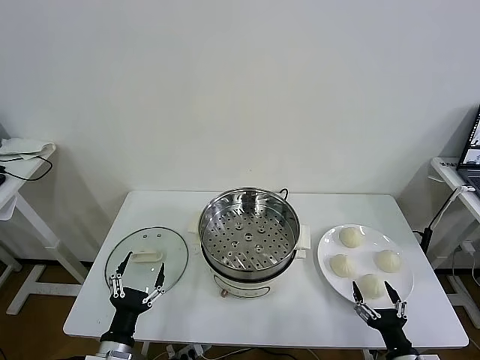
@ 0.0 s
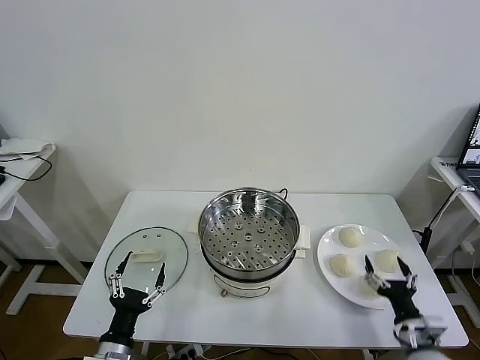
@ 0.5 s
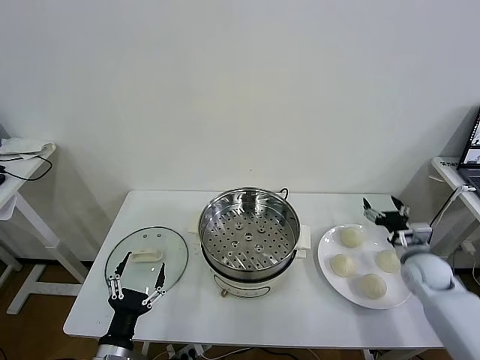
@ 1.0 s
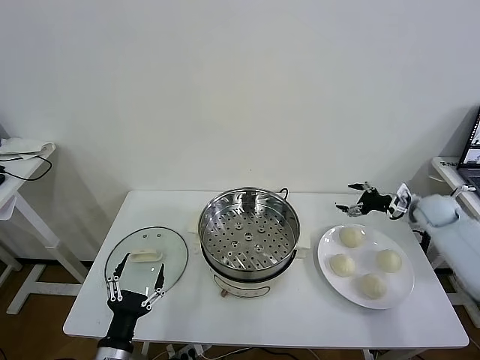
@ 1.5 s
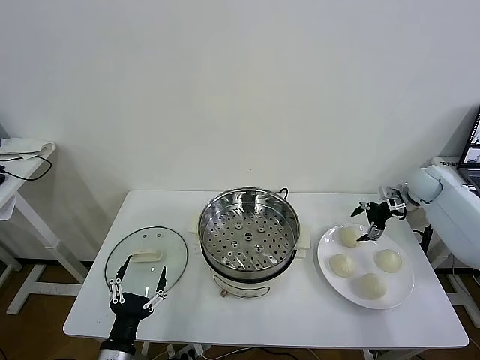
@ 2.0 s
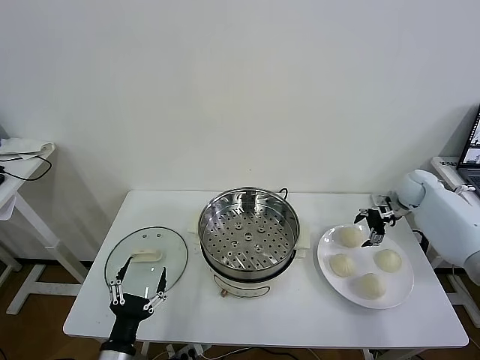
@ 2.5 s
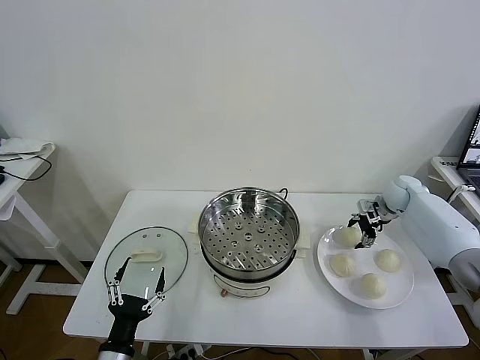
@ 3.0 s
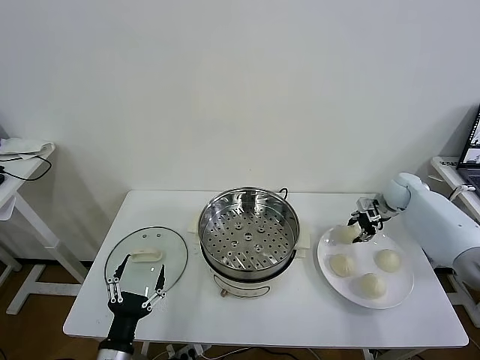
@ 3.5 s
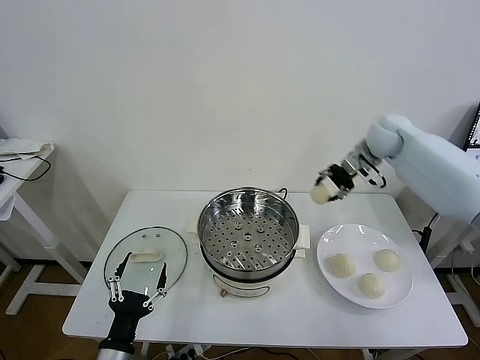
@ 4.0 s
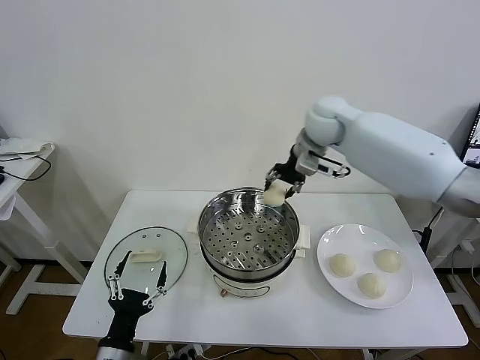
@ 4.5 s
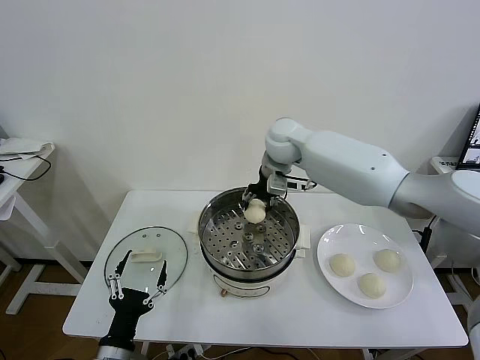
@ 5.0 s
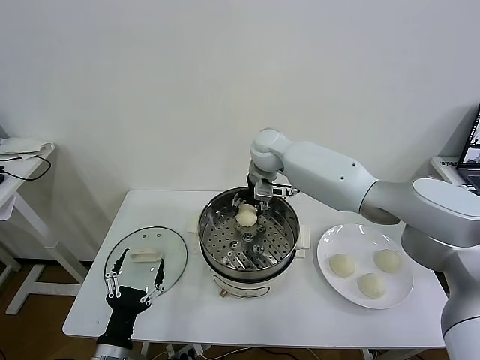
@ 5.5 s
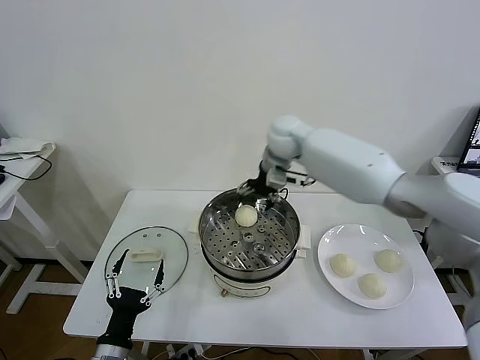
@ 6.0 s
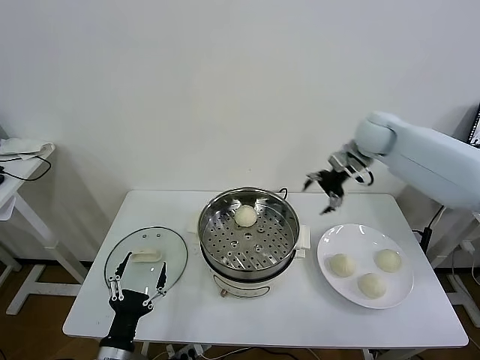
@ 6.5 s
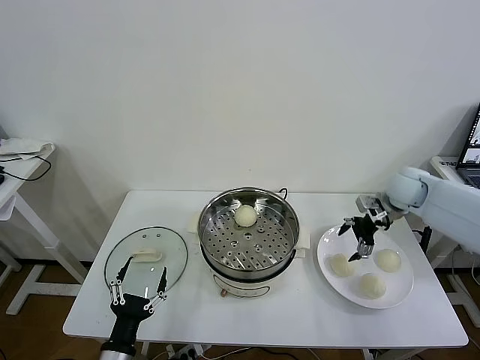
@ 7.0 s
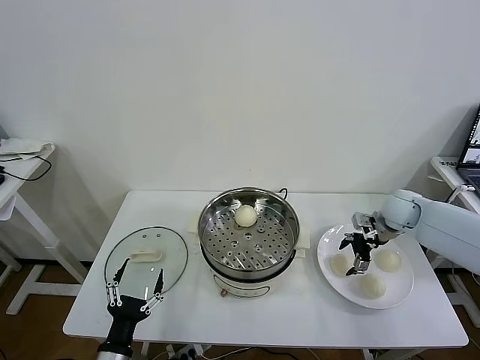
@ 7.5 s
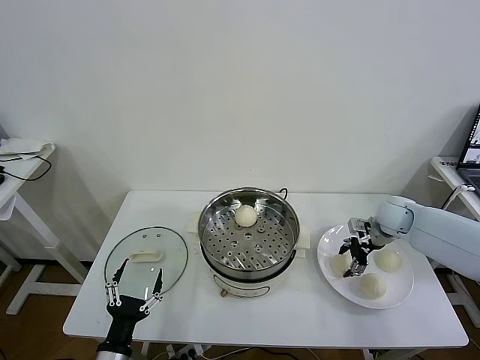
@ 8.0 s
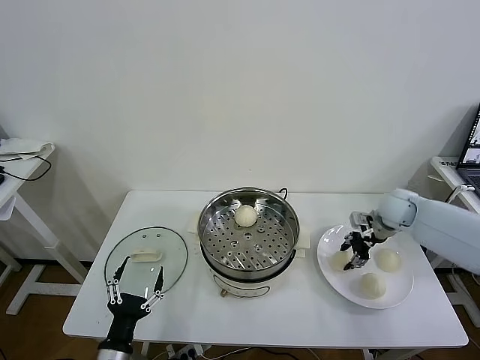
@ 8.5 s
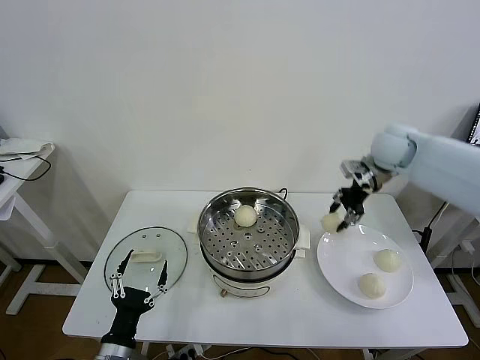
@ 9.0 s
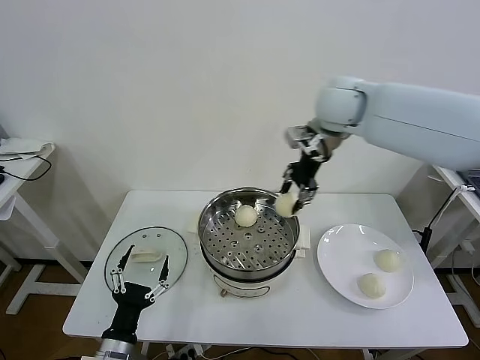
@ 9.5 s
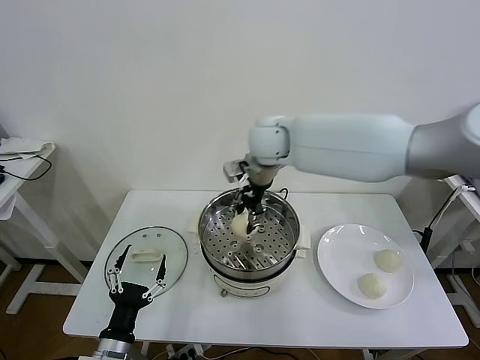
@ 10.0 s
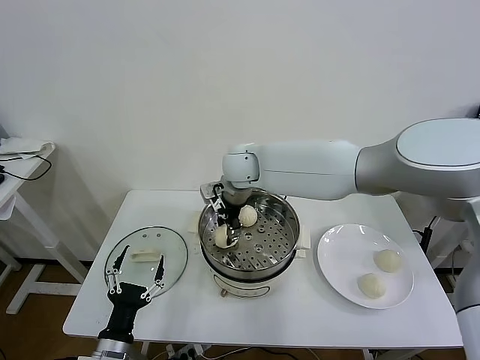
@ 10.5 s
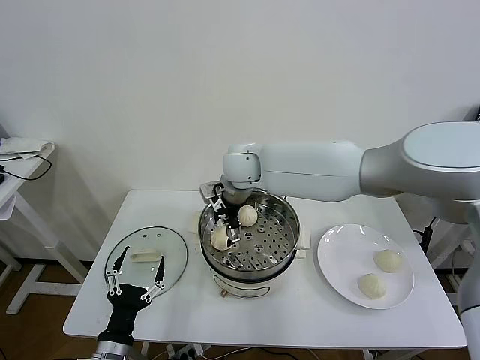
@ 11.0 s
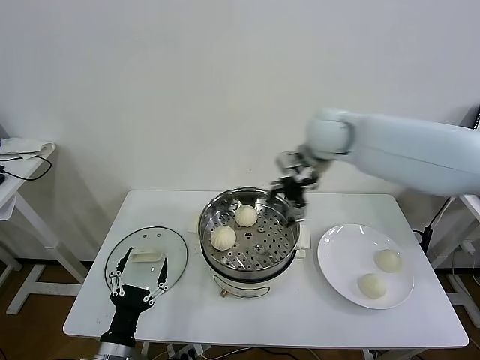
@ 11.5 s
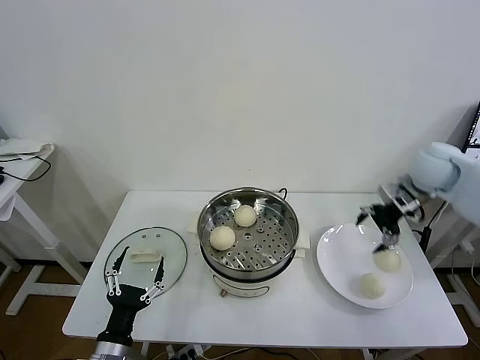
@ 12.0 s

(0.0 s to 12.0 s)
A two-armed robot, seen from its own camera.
Task of the whole recording: take steamed baozi put them in steamer then cover it.
Step, 0.0 s - 3.0 s: Grasp the baozi in the plate with right gripper.
Step, 3.5 s - 5.5 s: Place the baozi on the steamer with right gripper.
Step, 6.0 s - 8.0 s: Grasp the baozi in the plate with right gripper.
Step, 8.5 s - 10.5 s: Place the baozi on the steamer with right gripper.
2.0 s - 4.0 s: The right gripper travels to the left and upward by approximately 25 cm, and closes its fingers.
4.0 s - 6.0 s: The right gripper shifts some 20 cm to the left, and opens.
6.0 s - 8.0 s: The right gripper goes some 30 cm to the right and downward, and closes up.
8.0 s - 10.0 s: The right gripper shifts roughly 40 cm to the left and upward, and closes up.
10.0 s - 12.0 s: The right gripper travels to the right by approximately 35 cm, and opens up.

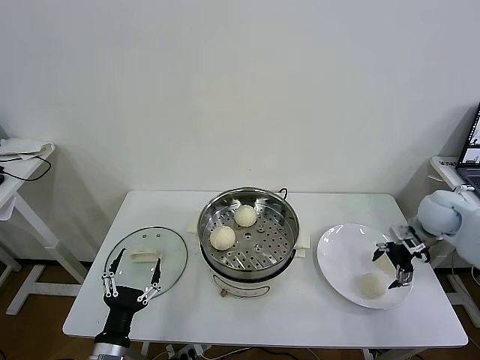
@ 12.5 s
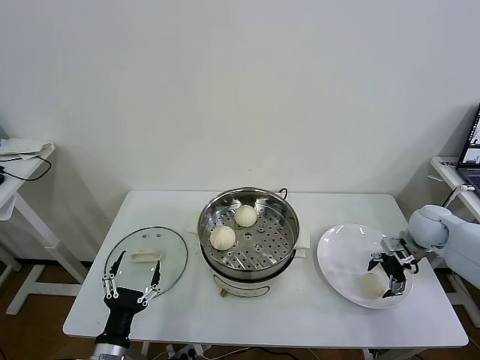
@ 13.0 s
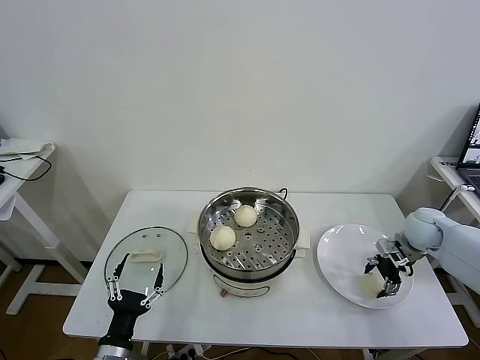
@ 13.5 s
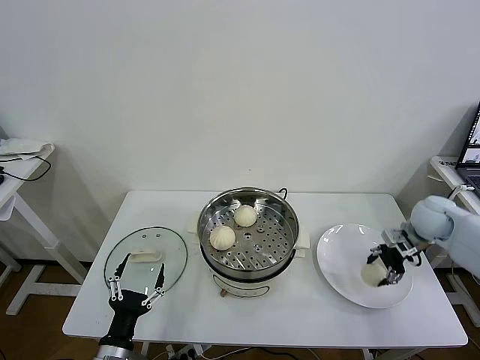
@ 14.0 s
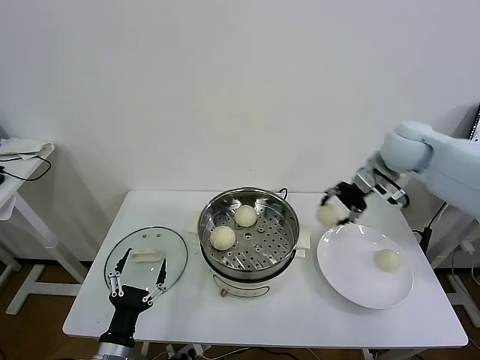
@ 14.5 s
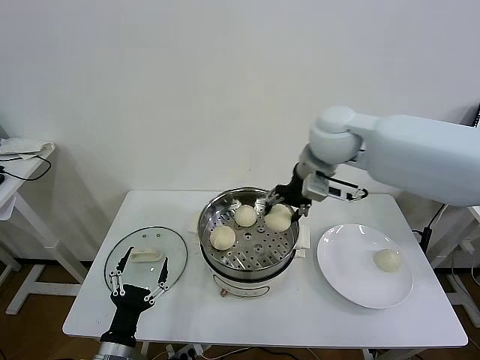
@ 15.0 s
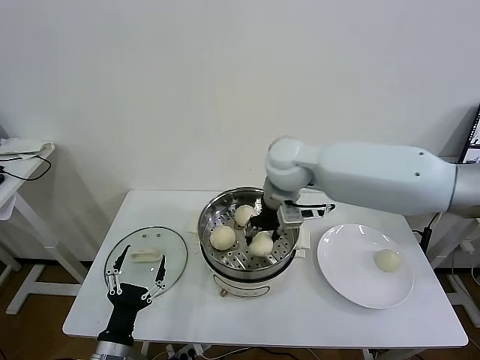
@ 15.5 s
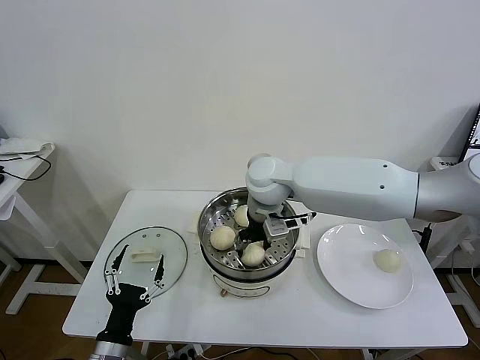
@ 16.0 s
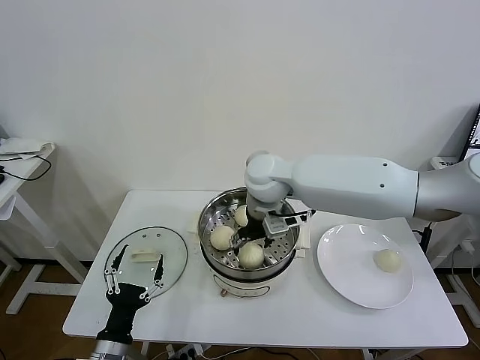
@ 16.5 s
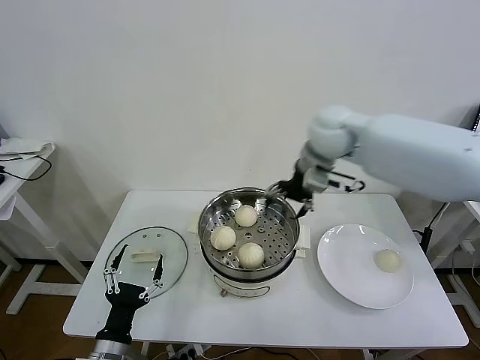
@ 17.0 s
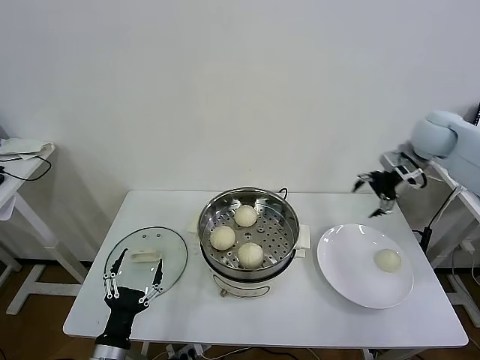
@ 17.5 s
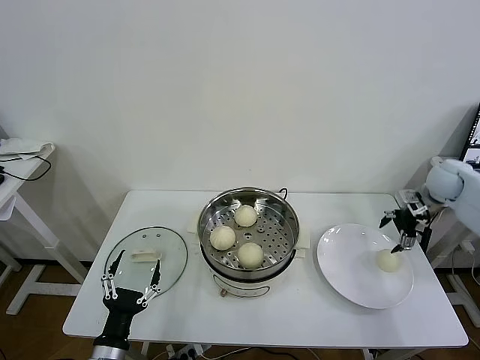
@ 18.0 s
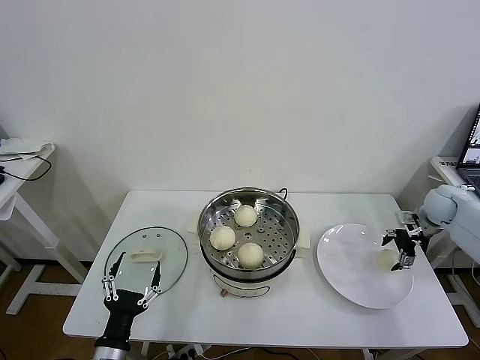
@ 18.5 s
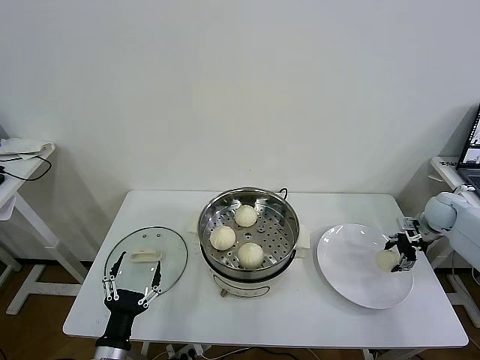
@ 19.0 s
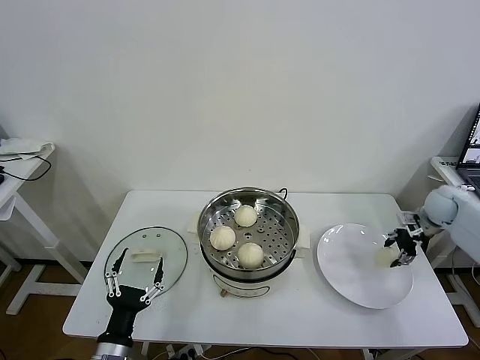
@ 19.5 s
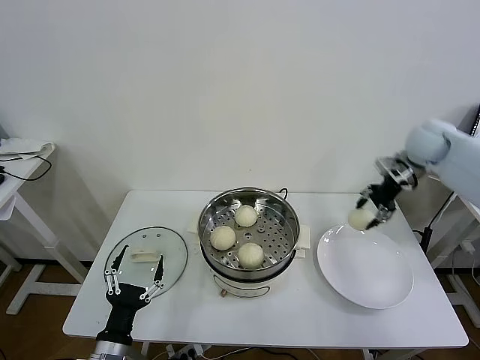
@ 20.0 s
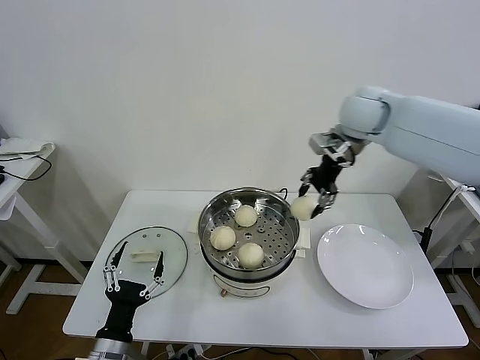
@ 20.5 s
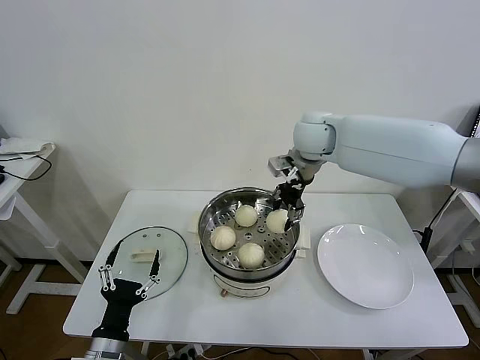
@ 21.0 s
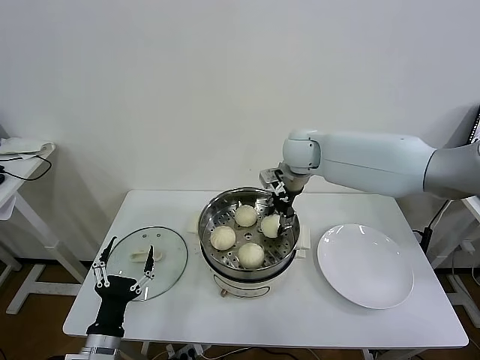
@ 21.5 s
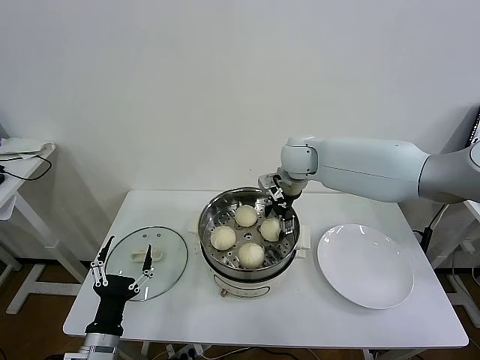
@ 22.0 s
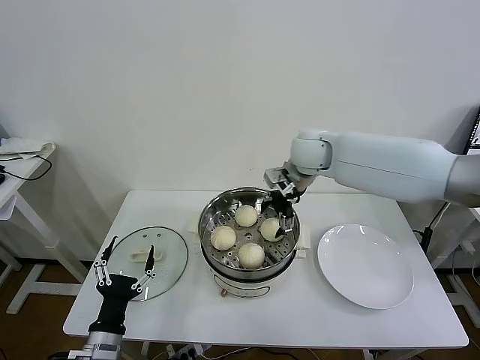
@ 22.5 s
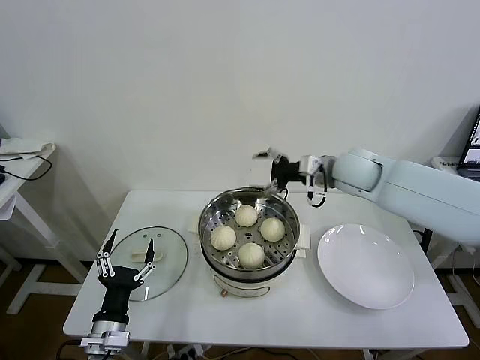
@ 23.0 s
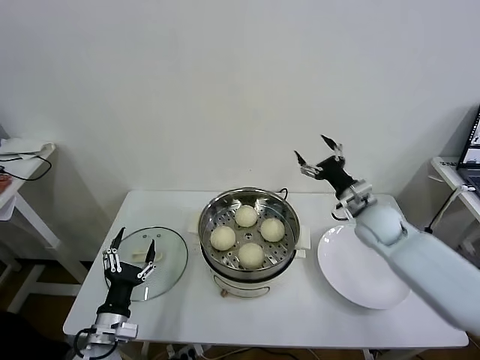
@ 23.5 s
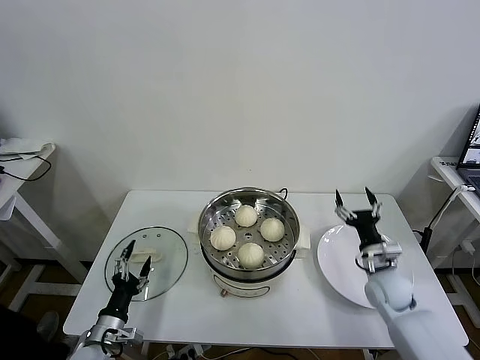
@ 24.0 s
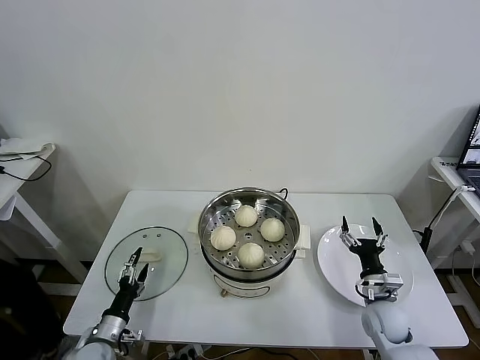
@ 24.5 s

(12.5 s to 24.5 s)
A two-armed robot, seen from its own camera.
Task of the whole recording: take steamed baozi put them in steamer then cover it.
Step, 14.0 s - 16.5 s: Place the baozi on the steamer with right gripper.
Step, 17.0 s - 19.0 s: Grasp the baozi in the plate with right gripper.
Step, 19.5 s - 22.0 s: Place the baozi on the steamer with right gripper.
12.5 s - 14.5 s: The right gripper goes about 20 cm upward and to the left, and closes up.
14.5 s - 16.5 s: The right gripper goes approximately 25 cm to the left, and opens.
16.5 s - 18.5 s: The right gripper goes about 50 cm to the right.
18.5 s - 20.5 s: The right gripper is displaced to the left and upward by approximately 35 cm, and closes.
20.5 s - 22.5 s: The right gripper moves downward and to the left, roughly 10 cm, and opens up.
22.5 s - 24.5 s: The right gripper goes approximately 40 cm downward, backward and to the right; the left gripper travels downward, forward and to the left by about 15 cm.

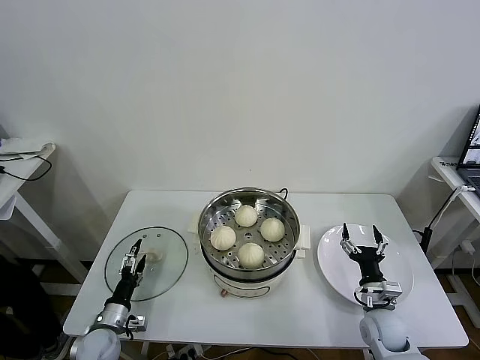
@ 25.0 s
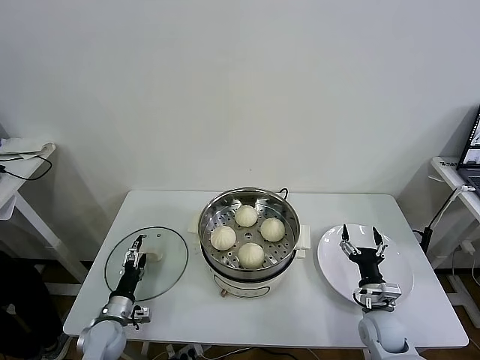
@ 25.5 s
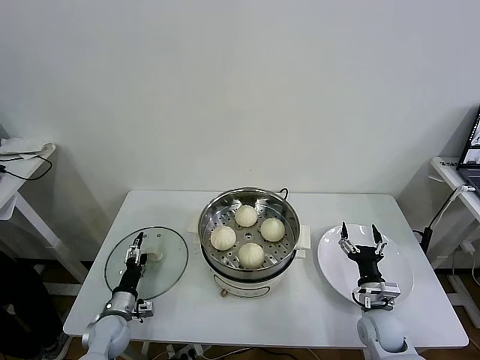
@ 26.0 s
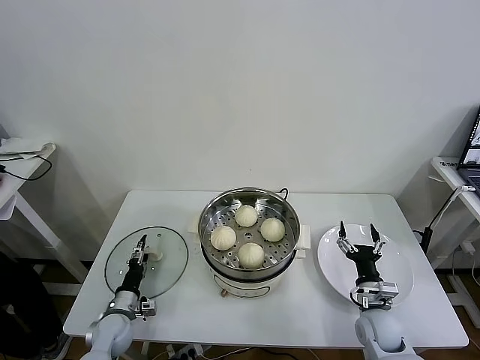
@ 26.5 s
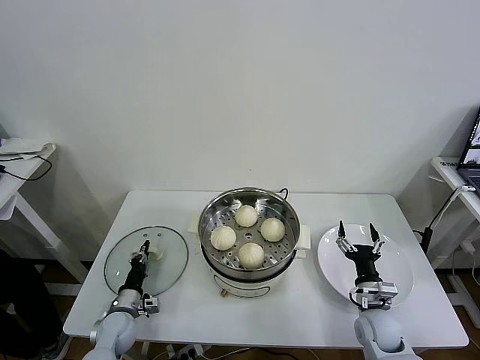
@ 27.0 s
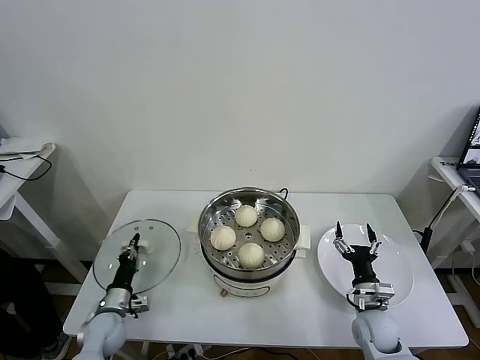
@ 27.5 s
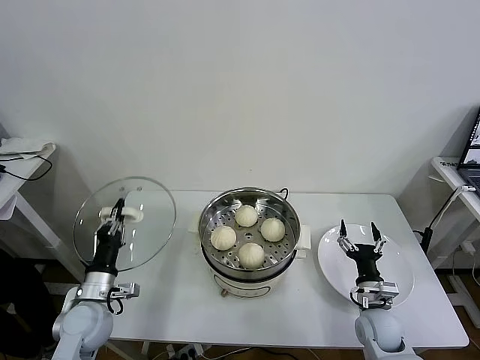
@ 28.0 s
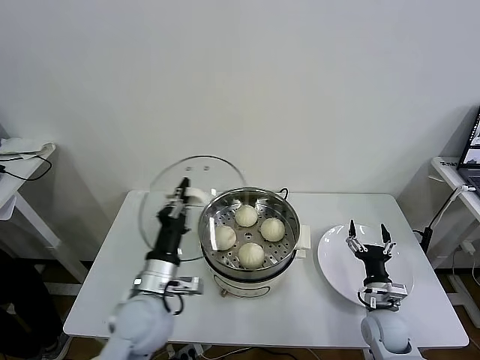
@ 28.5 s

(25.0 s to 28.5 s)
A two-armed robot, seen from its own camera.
Task of the whole recording: take steamed baozi put them in steamer then cover it.
Step, 25.0 s - 27.0 s: Grasp the pot lid with left gripper.
25.0 s - 27.0 s: The left gripper shifts by approximately 5 cm, and closes.
27.0 s - 28.5 s: The left gripper shifts roughly 25 cm upward and to the right.
